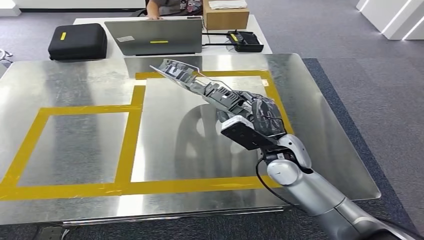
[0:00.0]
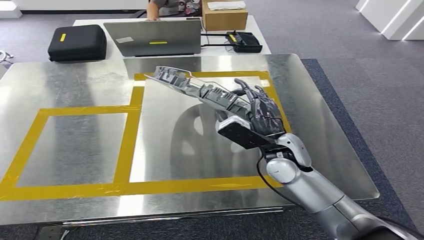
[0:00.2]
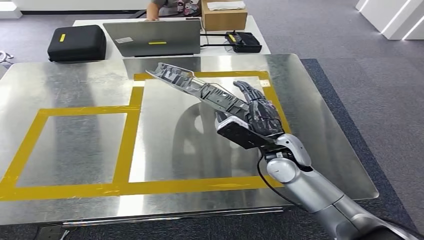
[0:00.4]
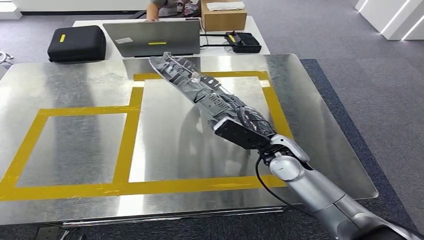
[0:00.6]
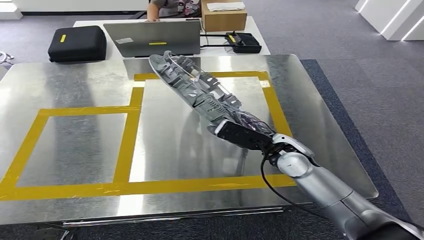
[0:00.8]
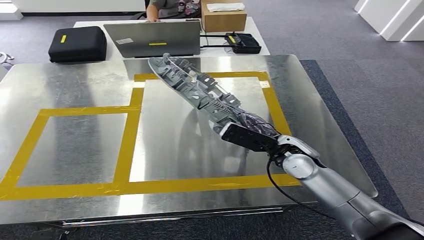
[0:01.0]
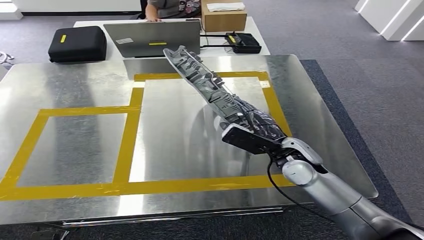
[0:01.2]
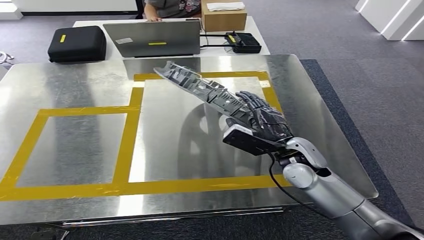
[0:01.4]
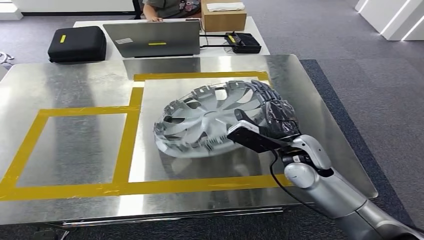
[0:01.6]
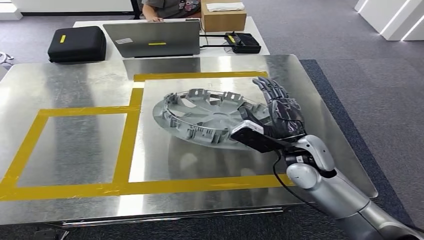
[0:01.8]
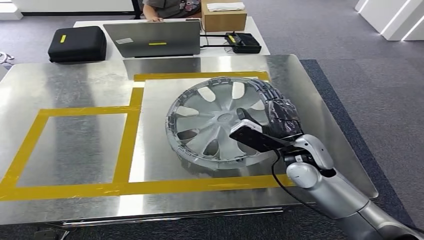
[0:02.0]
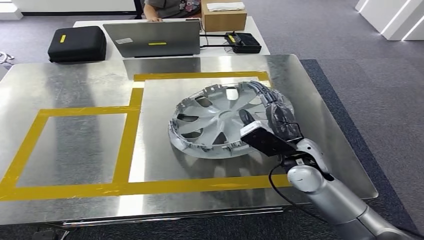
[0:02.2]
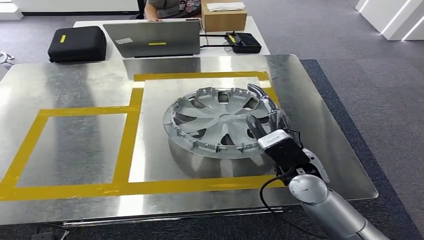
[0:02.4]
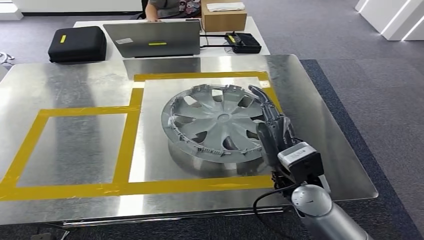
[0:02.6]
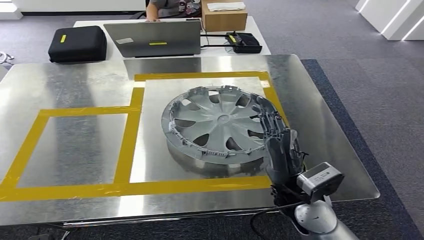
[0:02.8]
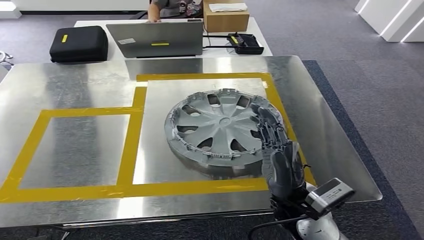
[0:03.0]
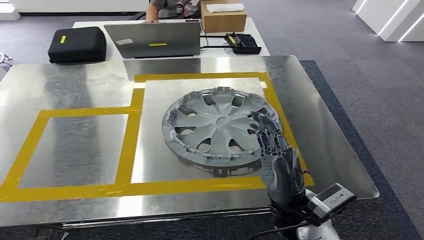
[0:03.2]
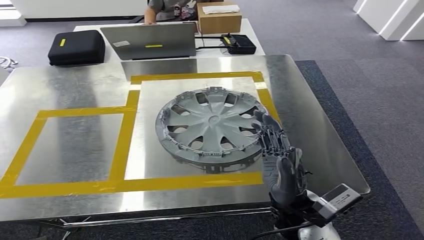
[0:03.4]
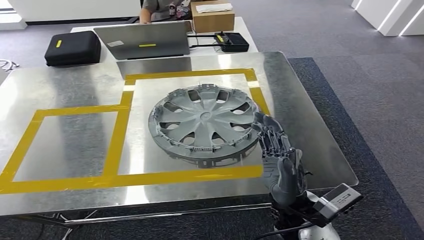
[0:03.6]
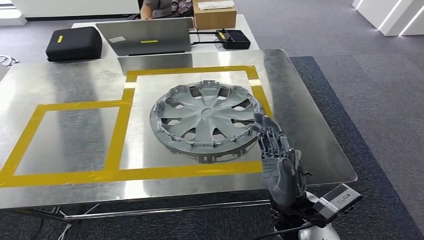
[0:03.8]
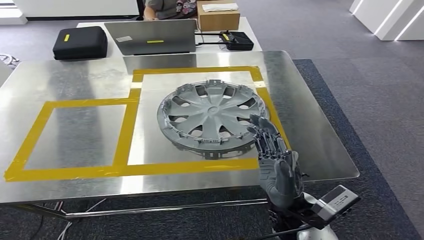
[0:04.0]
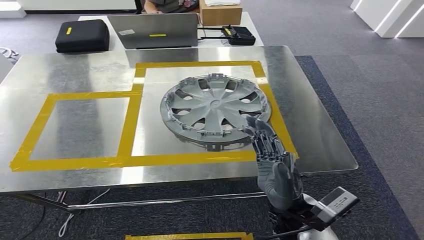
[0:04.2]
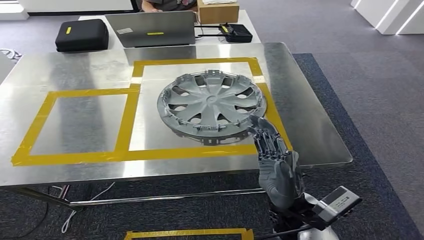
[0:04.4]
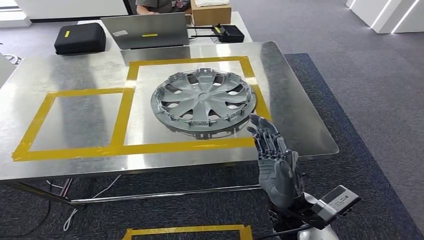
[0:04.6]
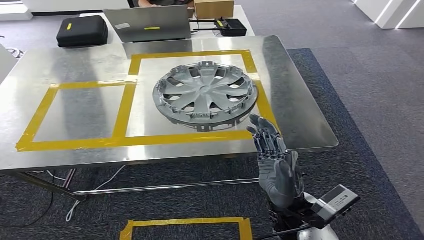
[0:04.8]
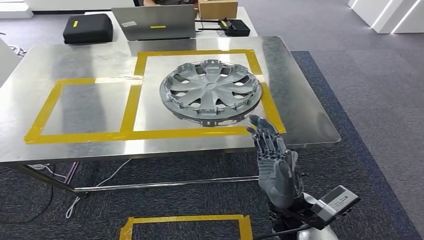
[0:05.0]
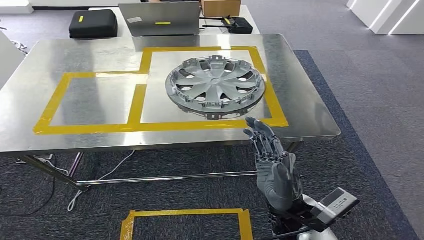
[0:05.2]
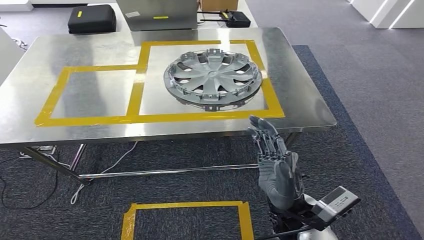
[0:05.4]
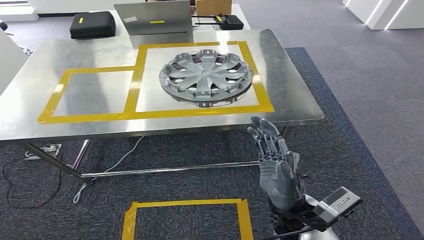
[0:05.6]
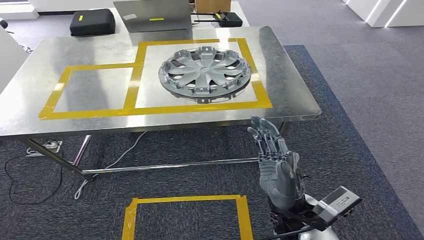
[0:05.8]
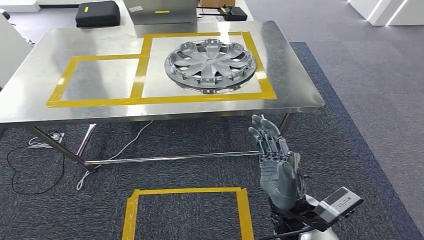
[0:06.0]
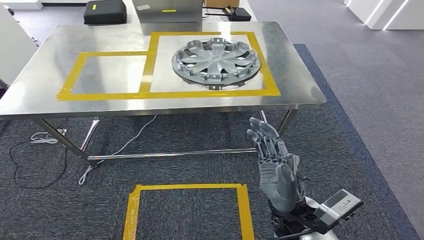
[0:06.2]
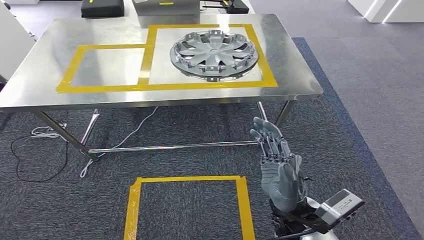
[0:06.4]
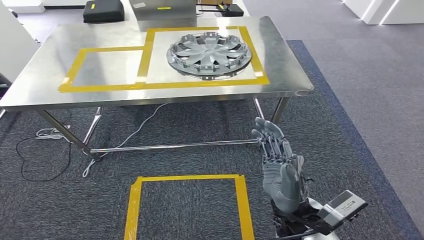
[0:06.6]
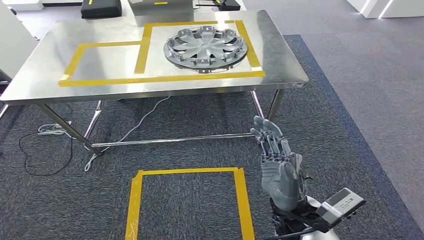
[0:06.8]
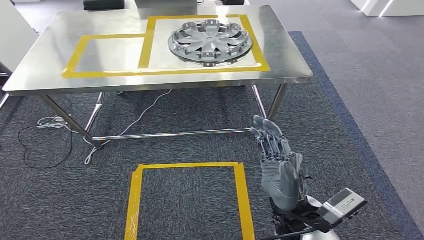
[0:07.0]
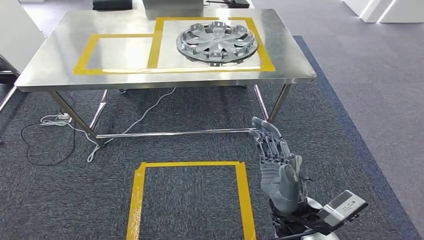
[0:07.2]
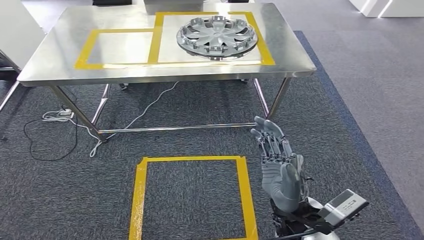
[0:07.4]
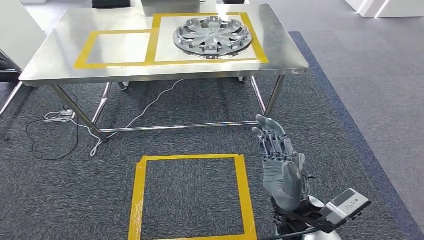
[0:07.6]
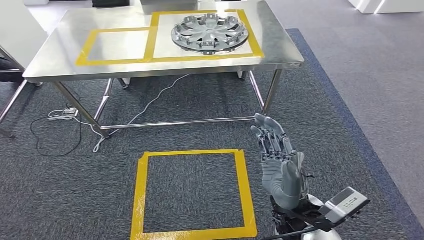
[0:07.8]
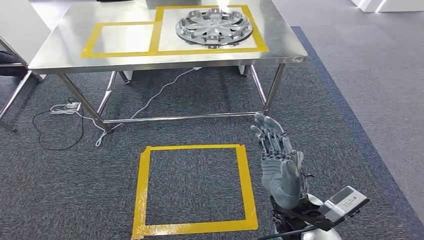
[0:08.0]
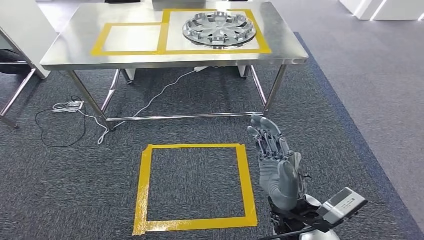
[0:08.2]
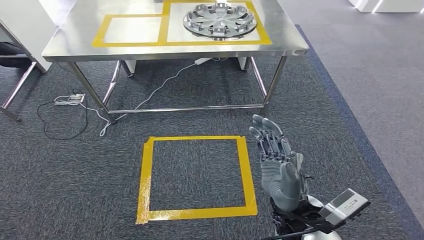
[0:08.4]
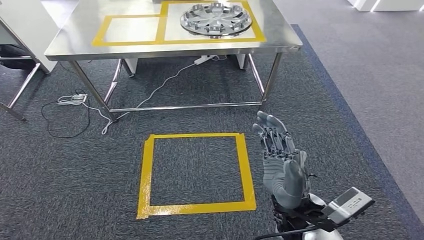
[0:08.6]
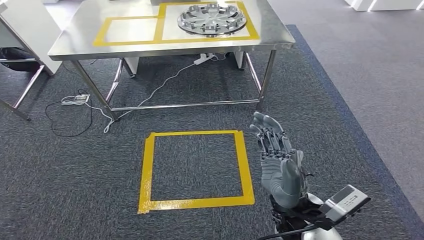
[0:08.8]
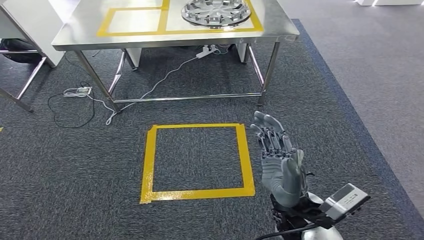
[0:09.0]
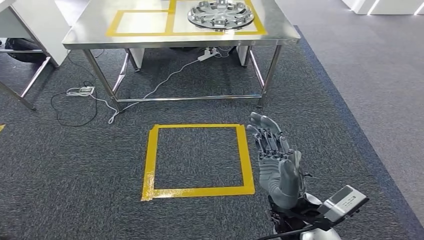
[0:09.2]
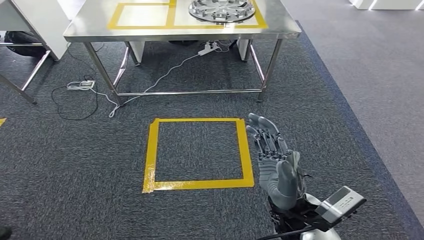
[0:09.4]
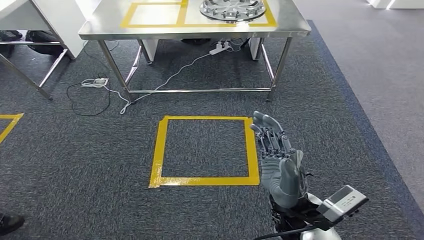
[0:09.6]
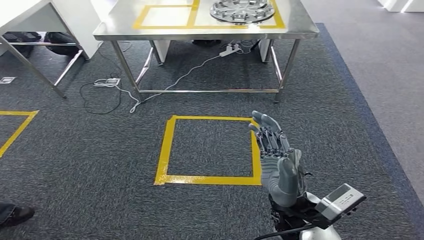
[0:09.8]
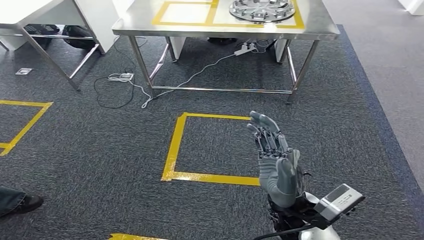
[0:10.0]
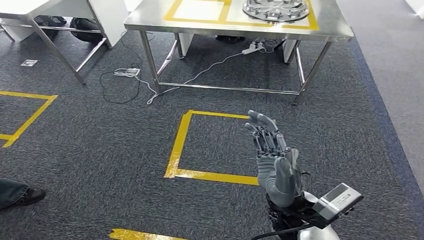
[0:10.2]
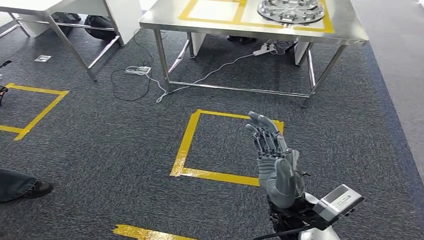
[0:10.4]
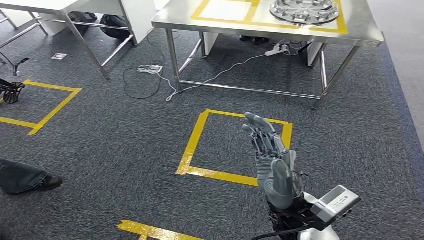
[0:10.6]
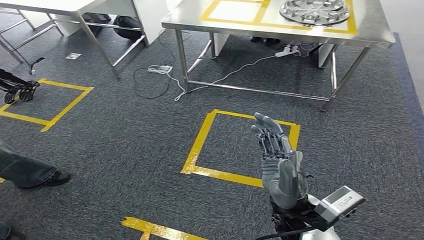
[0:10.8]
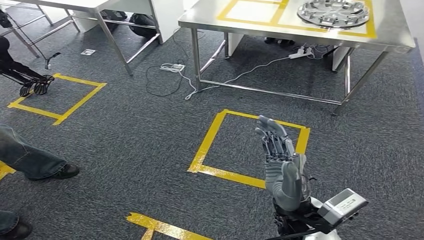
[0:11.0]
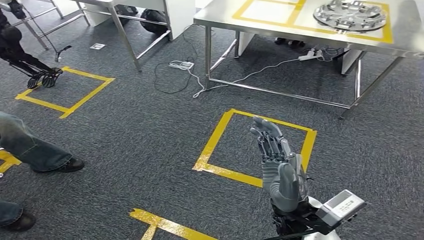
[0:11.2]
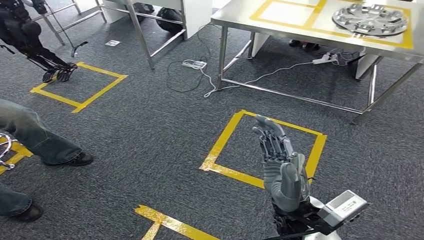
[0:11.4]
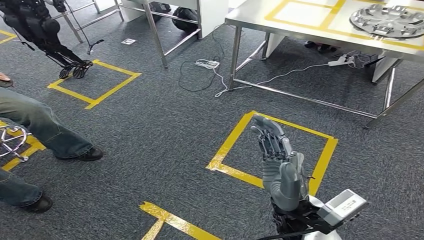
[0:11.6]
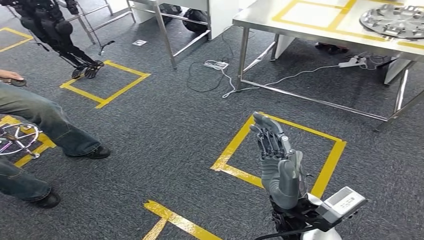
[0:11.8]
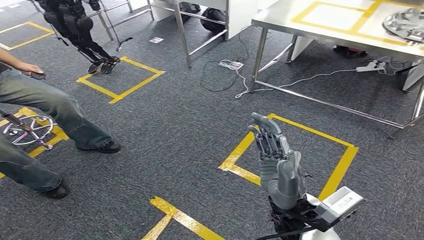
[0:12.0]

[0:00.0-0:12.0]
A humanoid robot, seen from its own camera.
Step, 0:00.0 to 0:06.0: Insert the small component into the corresponding slot on the workbench.

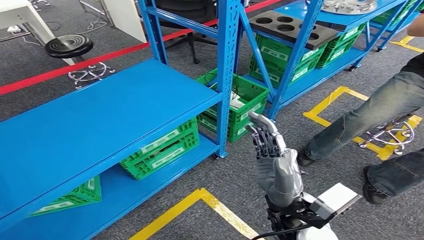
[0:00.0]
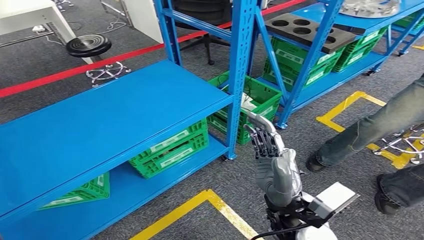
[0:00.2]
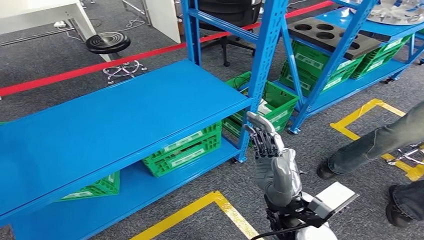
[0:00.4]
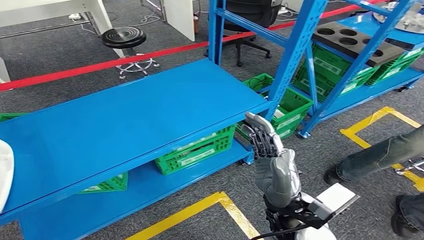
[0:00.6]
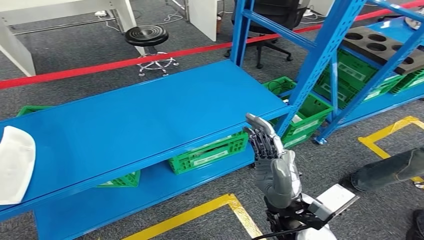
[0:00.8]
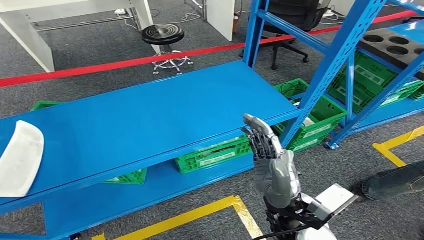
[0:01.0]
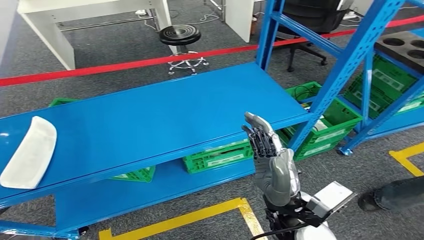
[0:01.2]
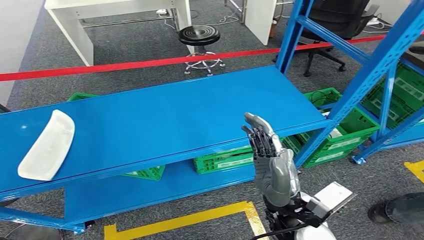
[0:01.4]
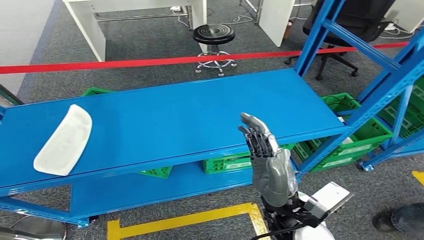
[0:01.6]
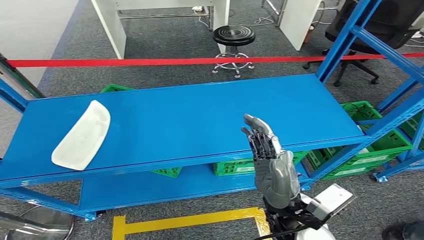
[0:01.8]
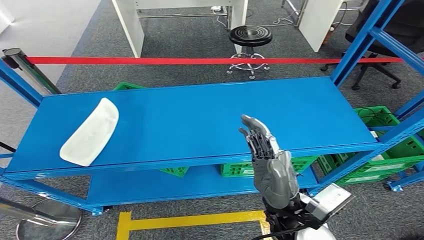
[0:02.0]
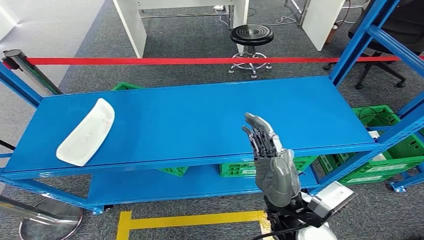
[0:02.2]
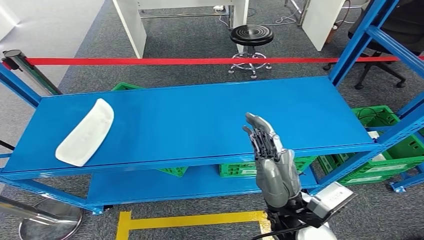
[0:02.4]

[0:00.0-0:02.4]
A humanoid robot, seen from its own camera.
Step, 0:00.0 to 0:02.4: Move to the initial position at the workbench.
